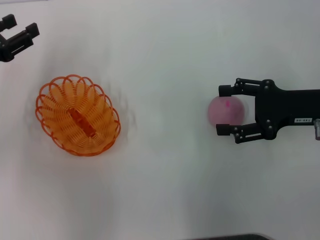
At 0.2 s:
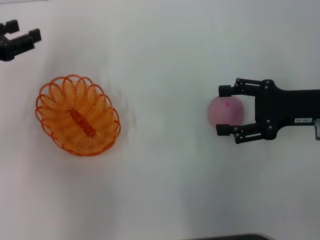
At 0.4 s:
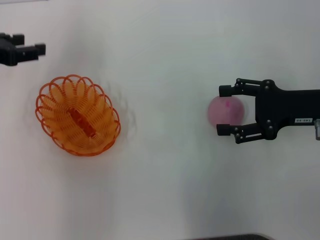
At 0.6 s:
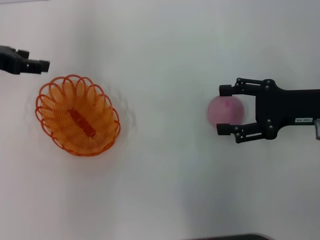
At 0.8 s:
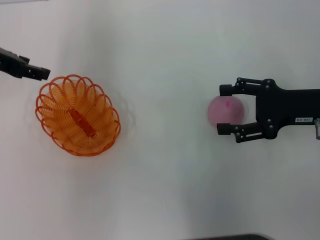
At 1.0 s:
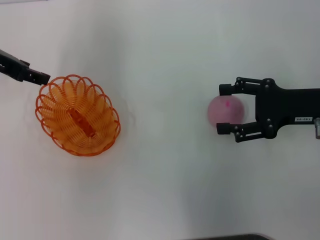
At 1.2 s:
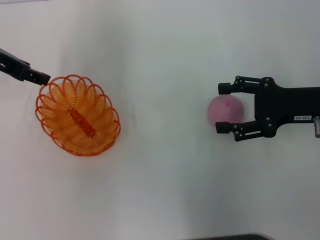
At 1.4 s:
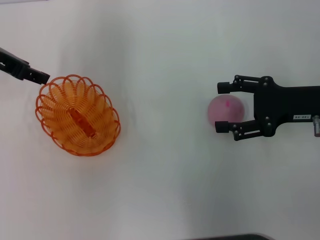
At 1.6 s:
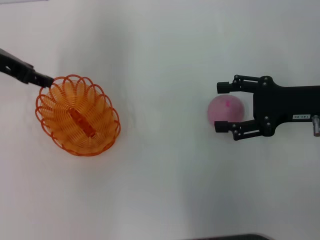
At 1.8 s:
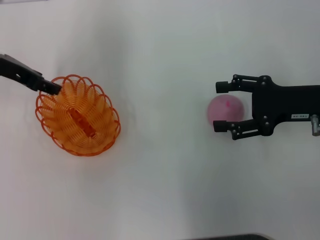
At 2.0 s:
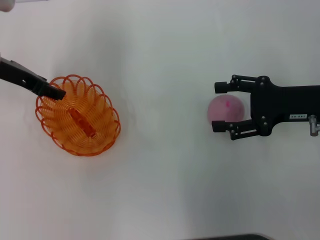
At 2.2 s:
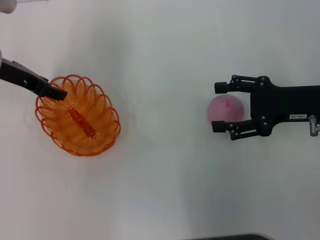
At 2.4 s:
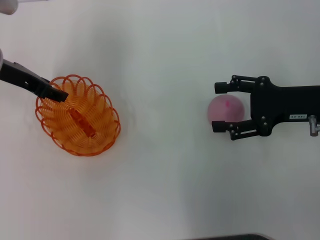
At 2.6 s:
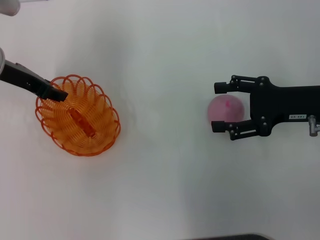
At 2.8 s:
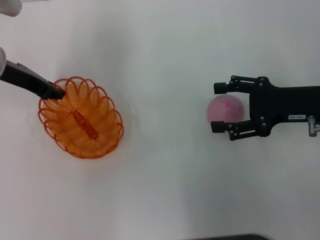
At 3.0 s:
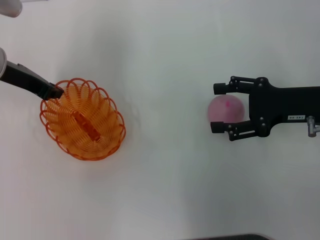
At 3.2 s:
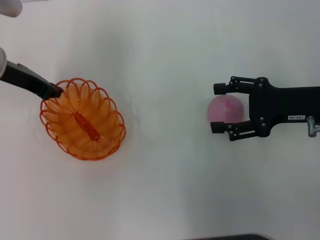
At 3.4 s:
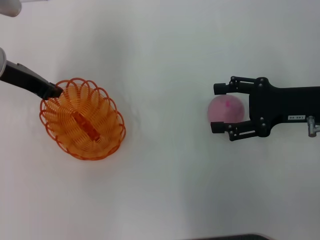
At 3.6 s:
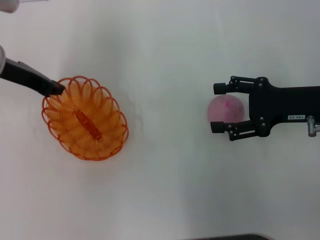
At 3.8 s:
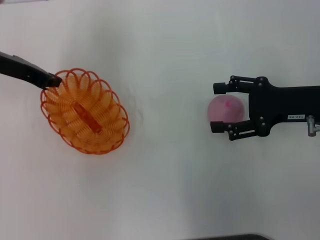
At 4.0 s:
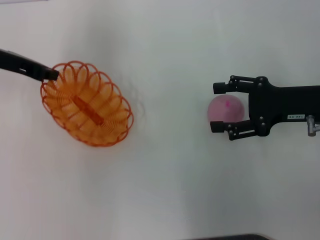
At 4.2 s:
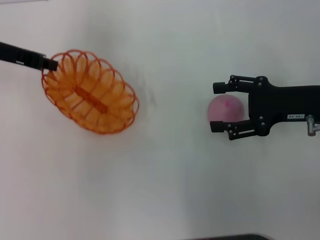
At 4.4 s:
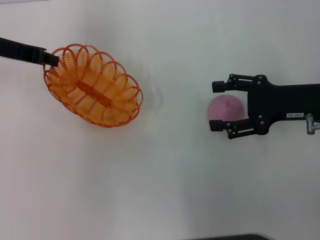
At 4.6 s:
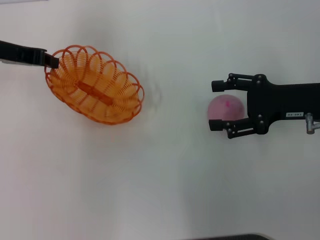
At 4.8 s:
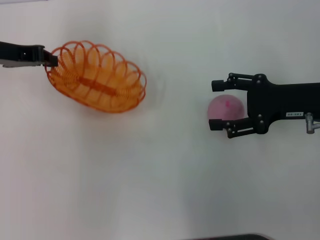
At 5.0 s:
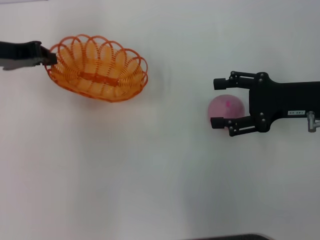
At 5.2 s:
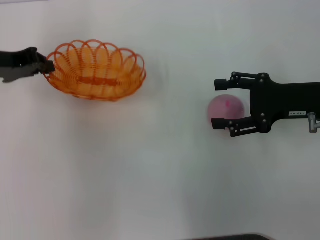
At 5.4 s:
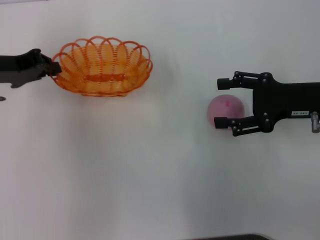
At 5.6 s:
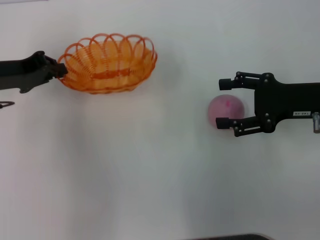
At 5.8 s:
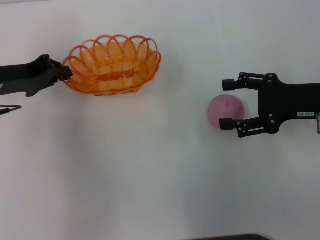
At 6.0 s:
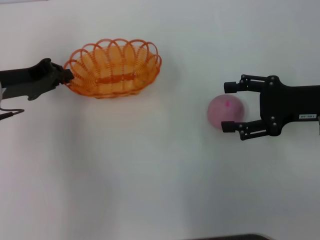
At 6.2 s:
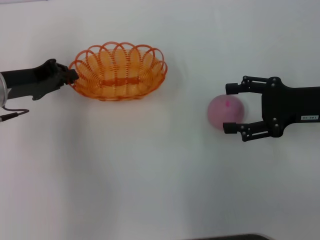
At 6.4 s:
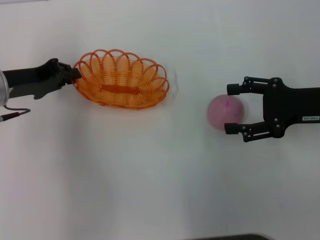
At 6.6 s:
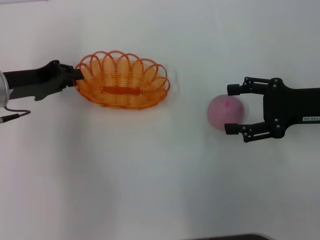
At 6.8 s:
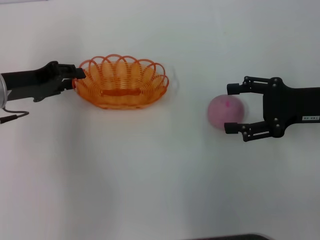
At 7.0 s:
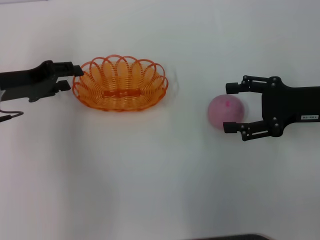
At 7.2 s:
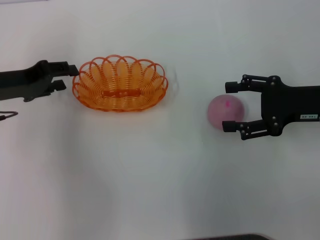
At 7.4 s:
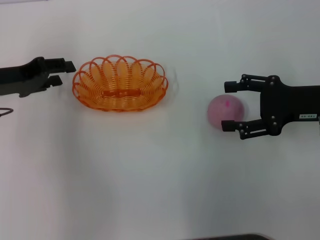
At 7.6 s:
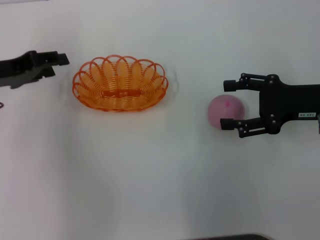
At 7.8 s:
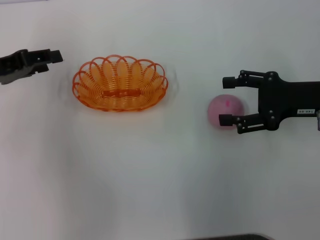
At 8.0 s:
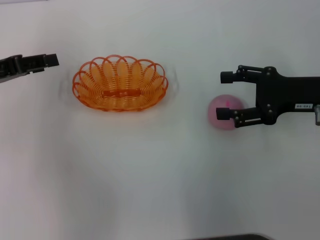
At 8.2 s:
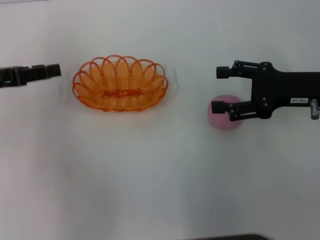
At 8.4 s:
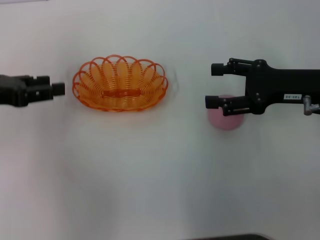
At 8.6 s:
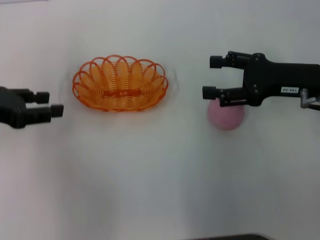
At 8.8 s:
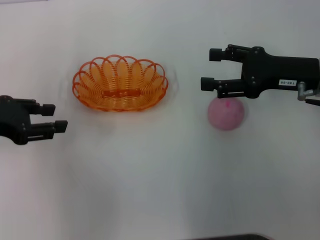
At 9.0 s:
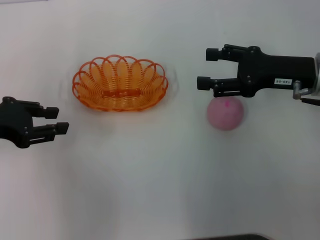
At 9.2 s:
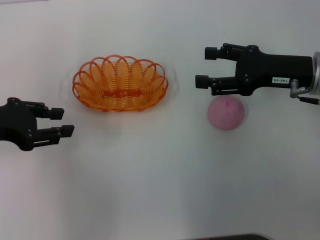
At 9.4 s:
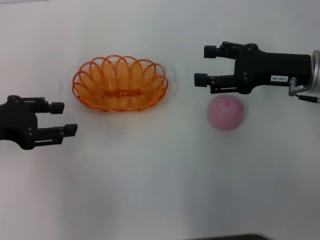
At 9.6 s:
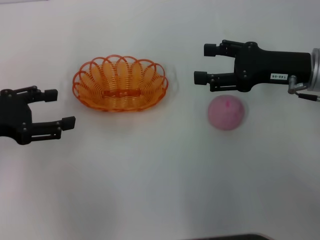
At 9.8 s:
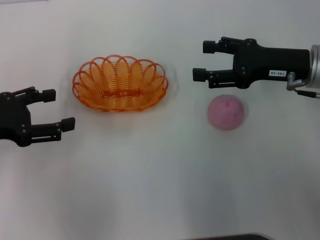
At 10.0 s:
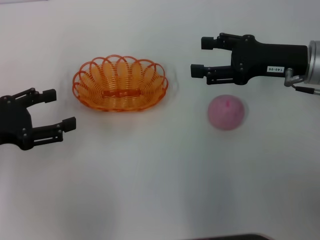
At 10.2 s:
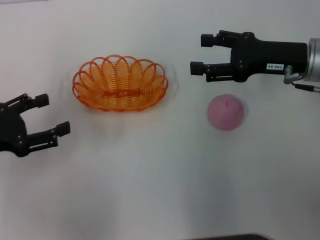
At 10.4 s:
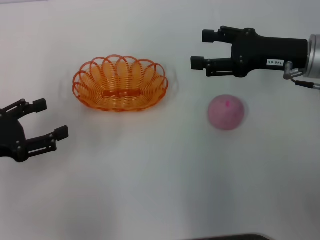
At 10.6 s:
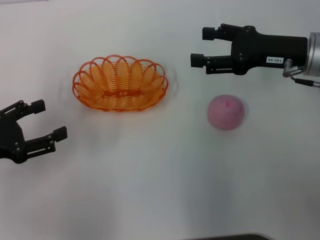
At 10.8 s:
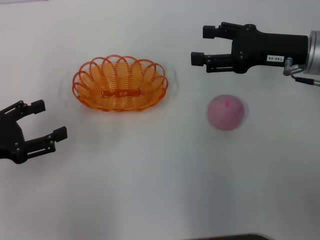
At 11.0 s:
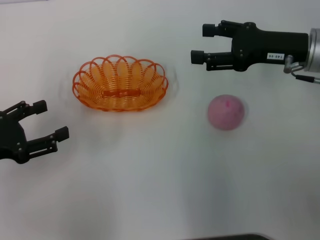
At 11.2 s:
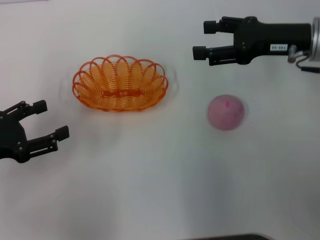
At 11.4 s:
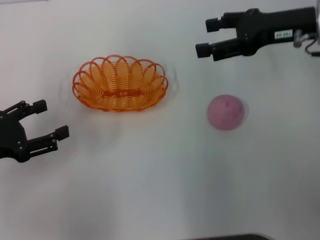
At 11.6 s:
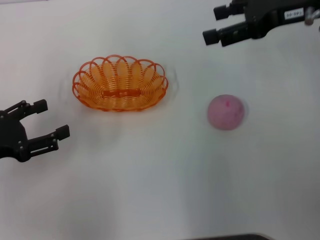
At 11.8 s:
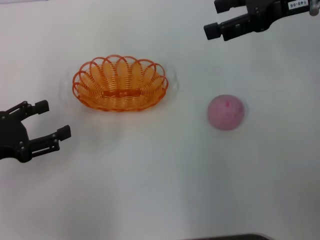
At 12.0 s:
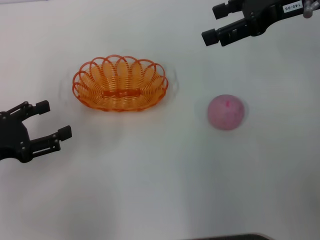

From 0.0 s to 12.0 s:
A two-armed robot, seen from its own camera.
Step, from 0.0 s to 3.8 s: Pick up the basket with the left gripper.
Step, from 4.0 s to 7.4 s: Place the basket in the center of view with the left gripper.
From 0.0 s to 1.6 s: The left gripper is displaced forward, upward and to the right by some 10 cm.
From 1.6 s to 3.0 s: The left gripper closes.
From 4.4 s to 6.0 s: The left gripper moves downward, approximately 5 cm.
From 6.0 s to 7.6 s: The left gripper opens.
From 7.6 s to 9.0 s: The left gripper goes approximately 5 cm backward.
From 9.0 s to 10.4 s: The left gripper heads backward and downward, covering roughly 5 cm, and opens.
From 10.4 s to 12.0 s: The right gripper shifts about 10 cm upward.

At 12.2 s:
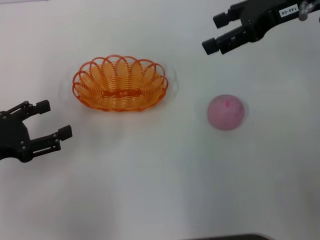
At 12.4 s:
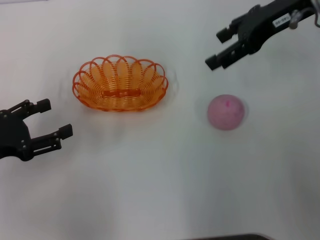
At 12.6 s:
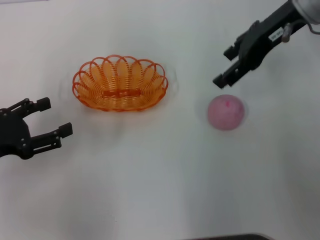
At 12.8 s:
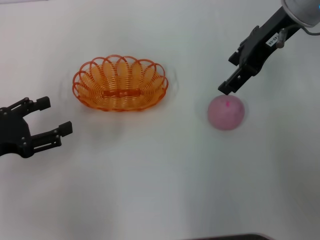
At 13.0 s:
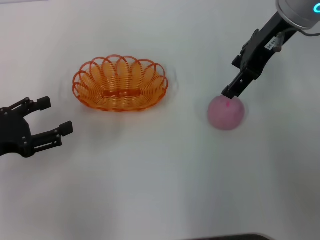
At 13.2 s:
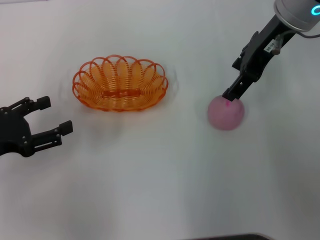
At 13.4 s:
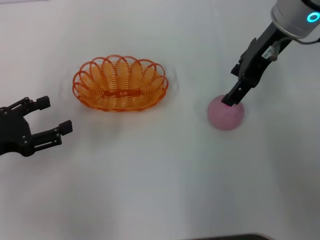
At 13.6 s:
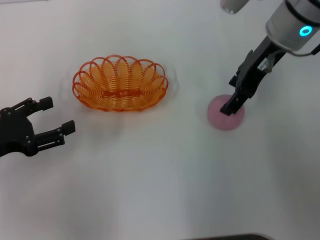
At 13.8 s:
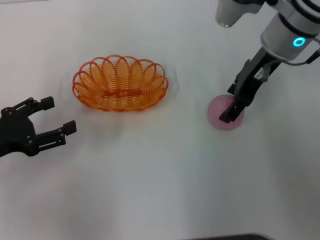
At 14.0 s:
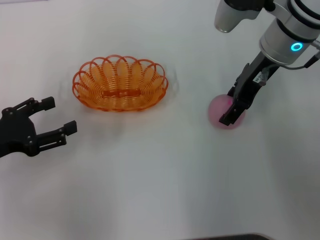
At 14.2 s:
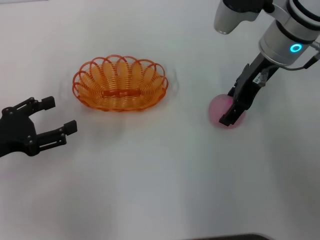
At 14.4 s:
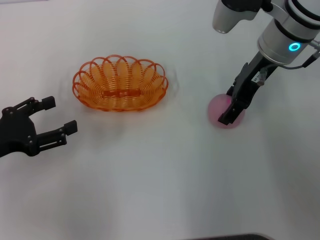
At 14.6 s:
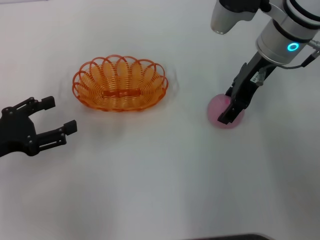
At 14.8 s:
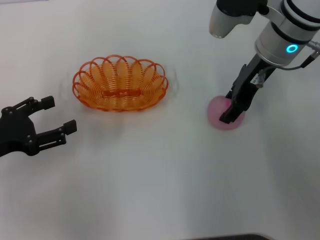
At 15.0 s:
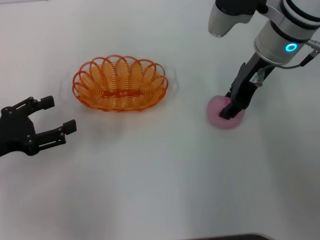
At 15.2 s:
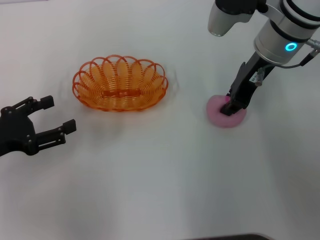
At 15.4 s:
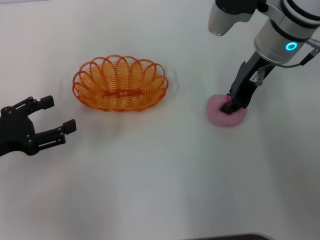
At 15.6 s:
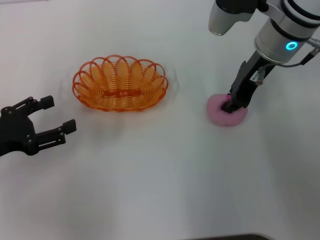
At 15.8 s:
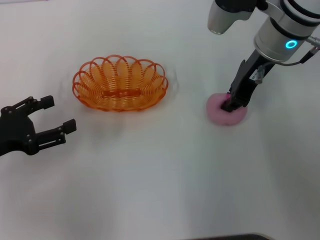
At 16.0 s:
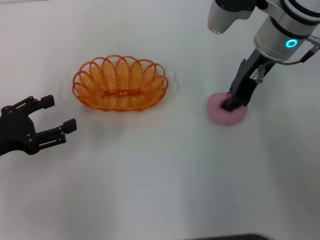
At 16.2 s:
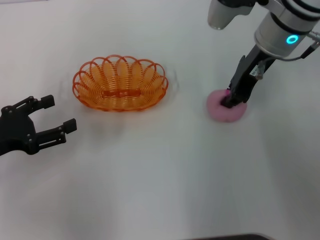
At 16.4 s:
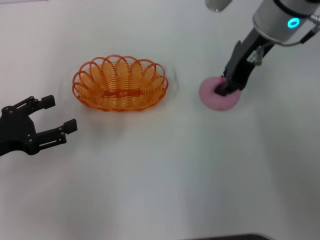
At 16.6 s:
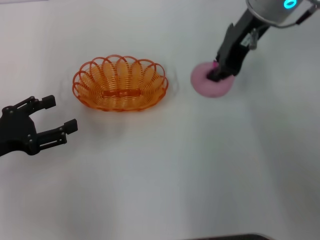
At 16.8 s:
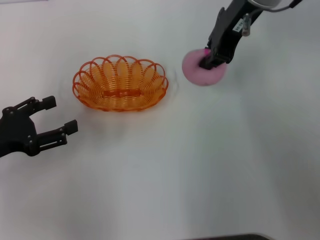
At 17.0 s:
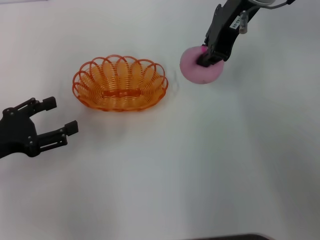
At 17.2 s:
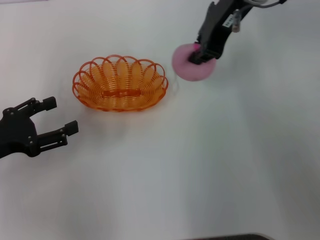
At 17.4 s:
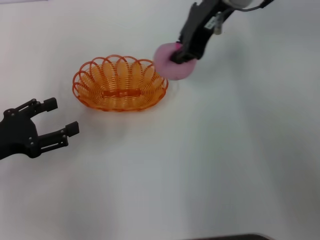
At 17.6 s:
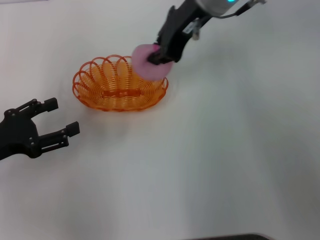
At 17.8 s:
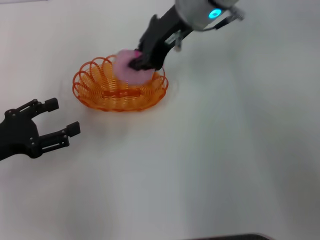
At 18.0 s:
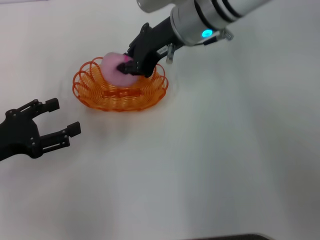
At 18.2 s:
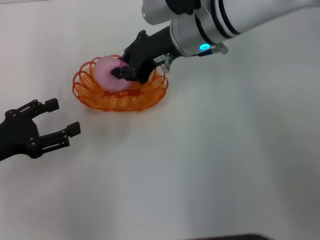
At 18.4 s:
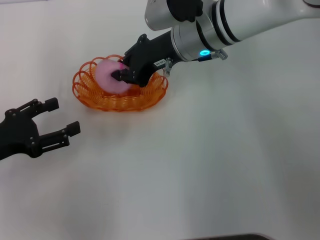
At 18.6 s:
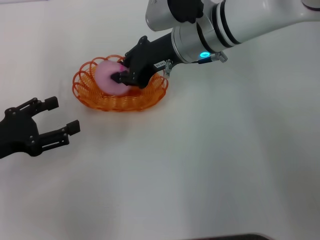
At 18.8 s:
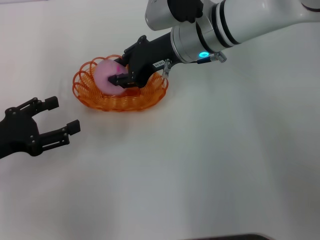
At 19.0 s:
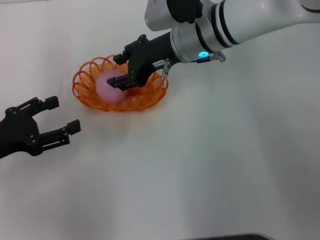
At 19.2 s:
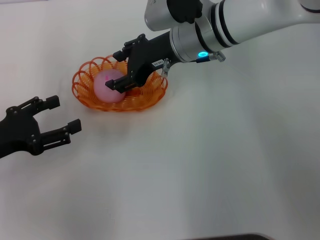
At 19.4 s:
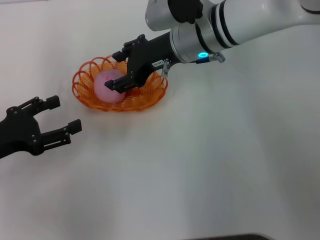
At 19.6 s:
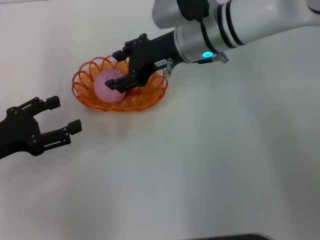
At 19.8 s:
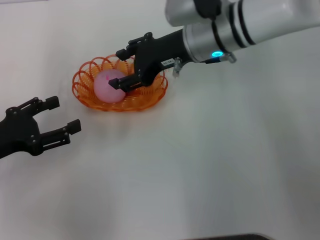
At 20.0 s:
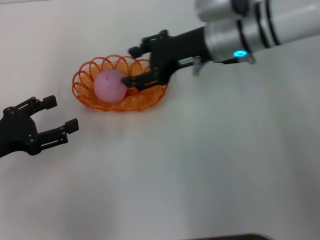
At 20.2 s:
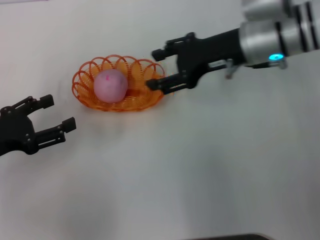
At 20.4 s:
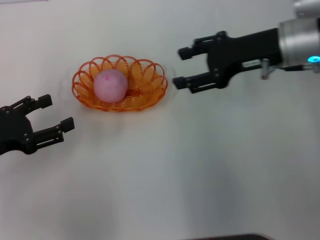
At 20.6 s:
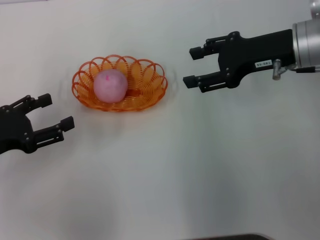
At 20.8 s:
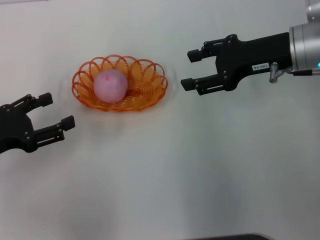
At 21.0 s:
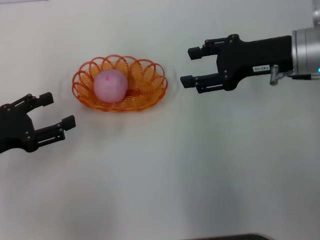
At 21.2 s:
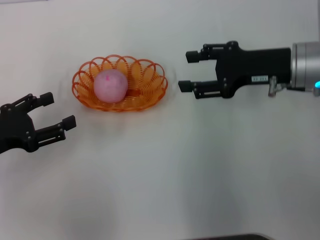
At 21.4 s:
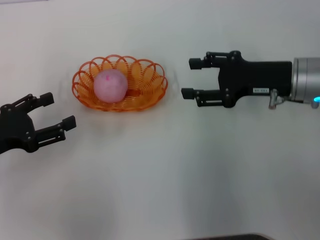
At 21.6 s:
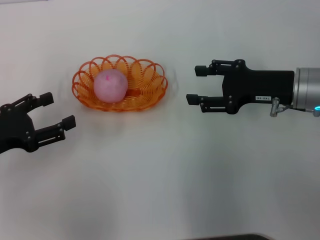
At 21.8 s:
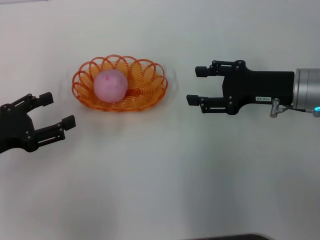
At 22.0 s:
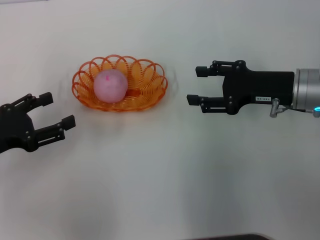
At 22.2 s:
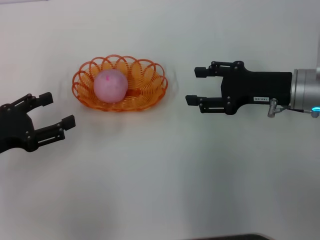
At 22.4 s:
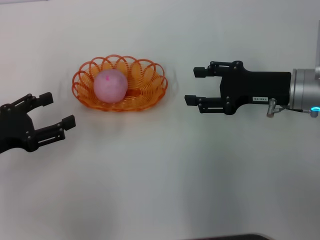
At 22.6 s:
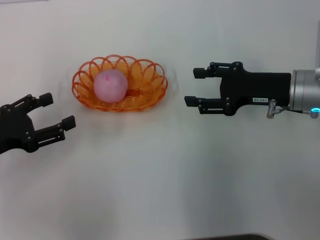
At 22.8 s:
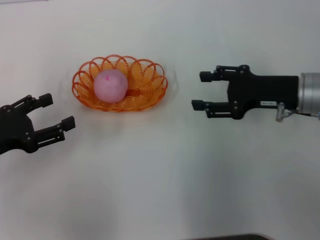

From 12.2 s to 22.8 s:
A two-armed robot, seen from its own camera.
Step, from 12.2 s to 16.8 s: Pick up the peach with the right gripper.
Step, from 17.2 s to 21.0 s: Place the peach into the basket with the right gripper.
From 12.2 s to 13.8 s: The right gripper shifts roughly 10 cm to the left and downward.
From 13.8 s to 15.2 s: The right gripper closes up.
From 15.2 s to 16.8 s: The right gripper heads upward, covering roughly 10 cm, and closes up.
From 16.8 s to 18.2 s: The right gripper travels downward and to the left by approximately 10 cm.
From 18.2 s to 19.8 s: The right gripper opens.
From 19.8 s to 21.2 s: The right gripper goes about 15 cm to the right and backward.
From 21.2 s to 22.8 s: The right gripper changes place by about 5 cm.
